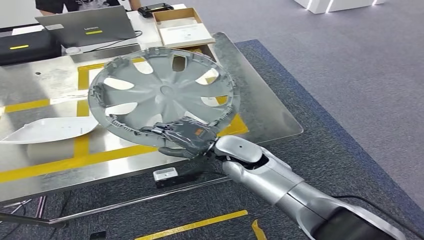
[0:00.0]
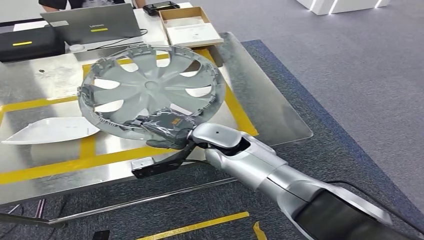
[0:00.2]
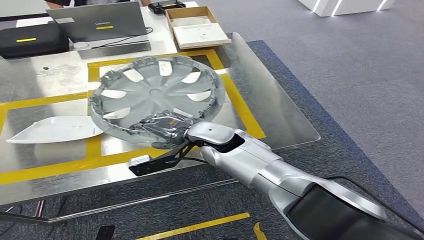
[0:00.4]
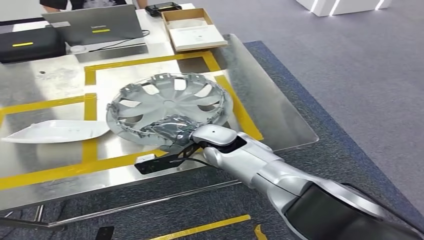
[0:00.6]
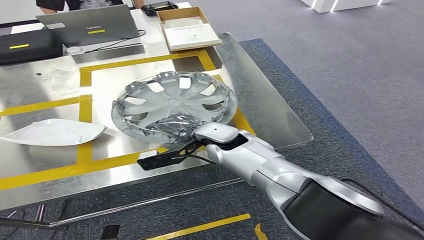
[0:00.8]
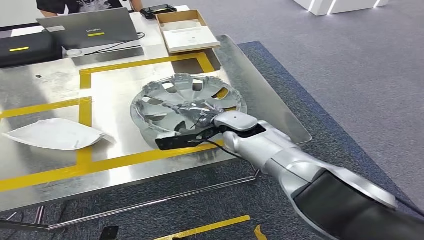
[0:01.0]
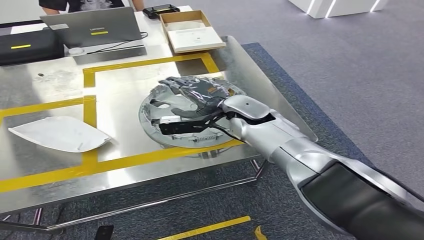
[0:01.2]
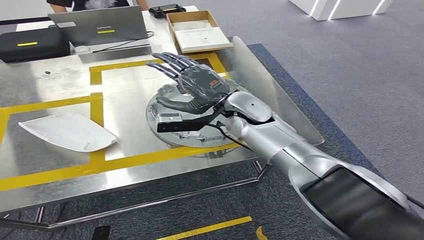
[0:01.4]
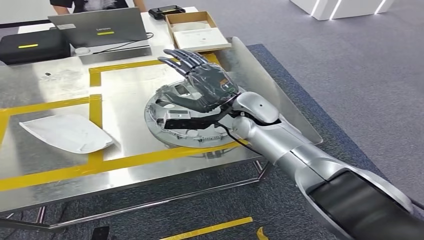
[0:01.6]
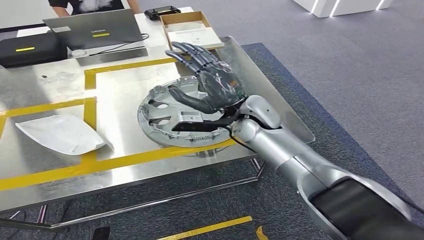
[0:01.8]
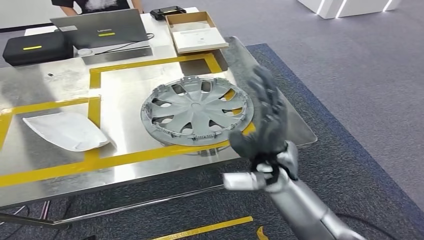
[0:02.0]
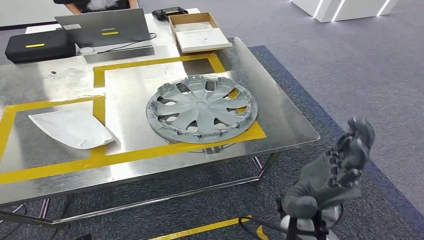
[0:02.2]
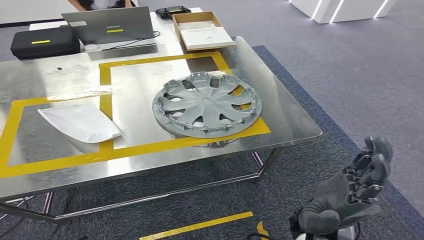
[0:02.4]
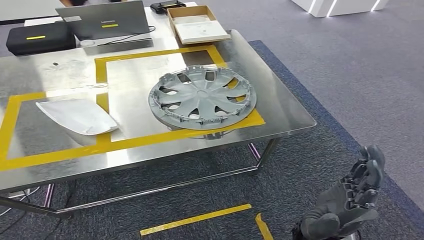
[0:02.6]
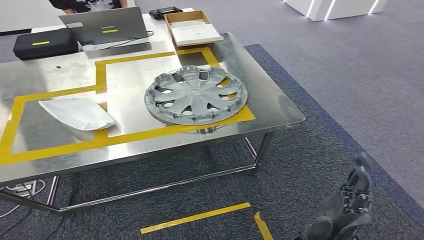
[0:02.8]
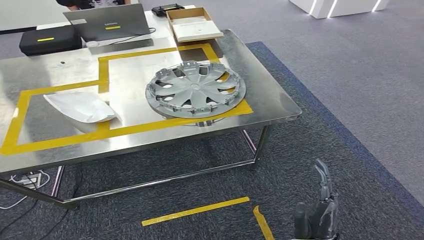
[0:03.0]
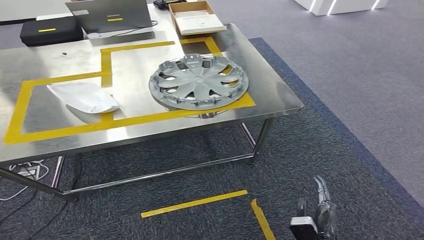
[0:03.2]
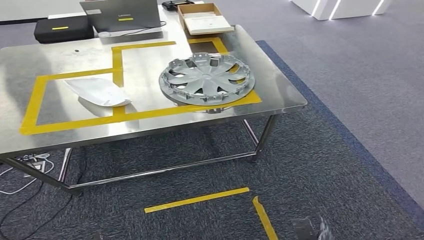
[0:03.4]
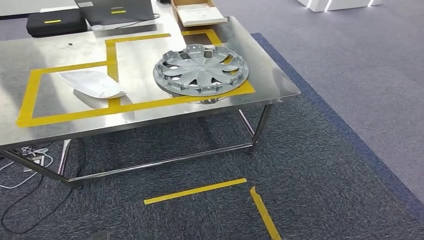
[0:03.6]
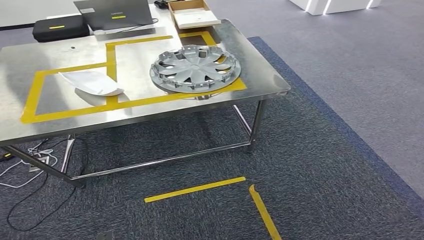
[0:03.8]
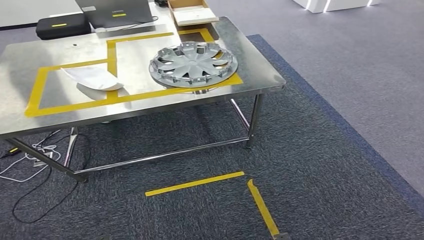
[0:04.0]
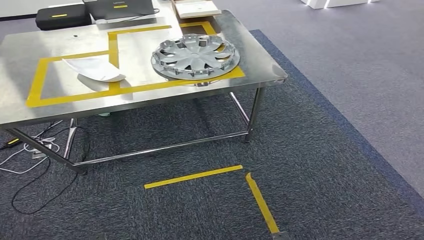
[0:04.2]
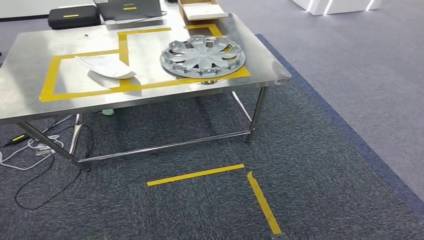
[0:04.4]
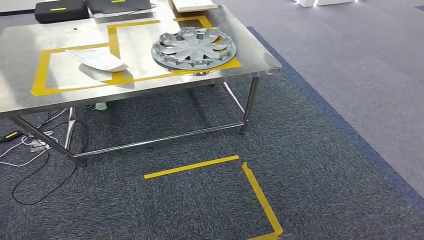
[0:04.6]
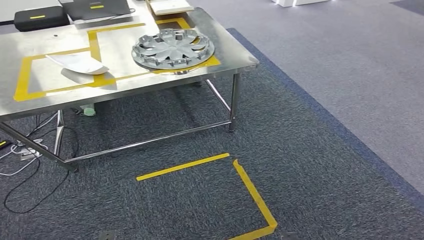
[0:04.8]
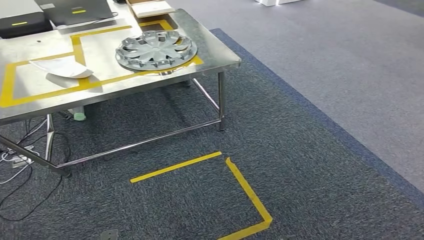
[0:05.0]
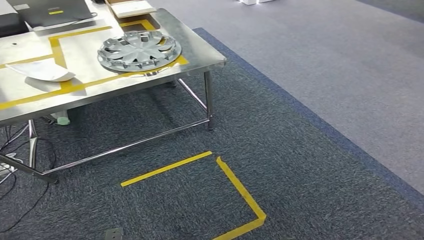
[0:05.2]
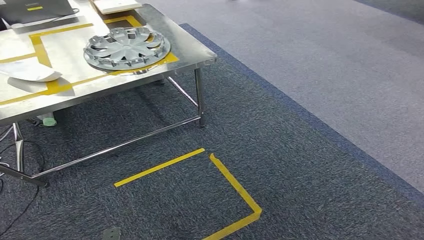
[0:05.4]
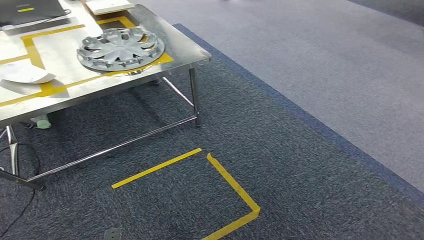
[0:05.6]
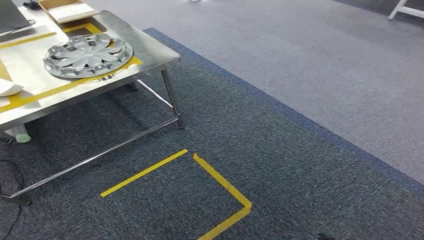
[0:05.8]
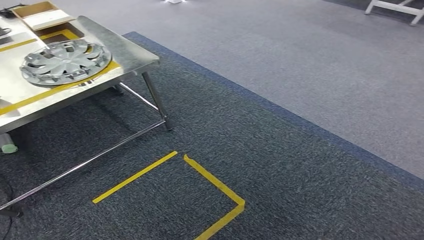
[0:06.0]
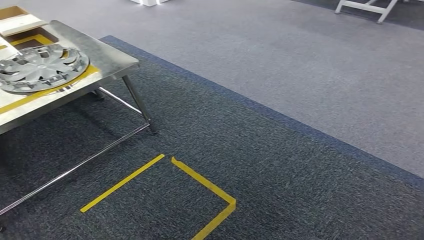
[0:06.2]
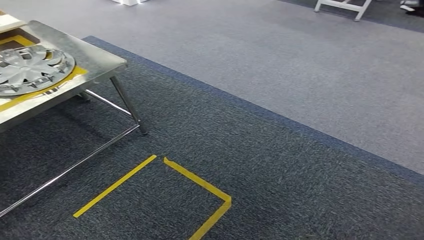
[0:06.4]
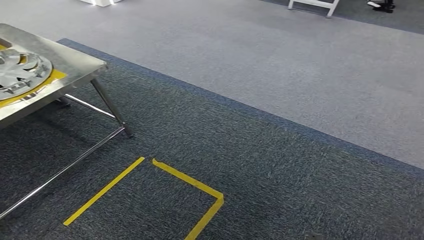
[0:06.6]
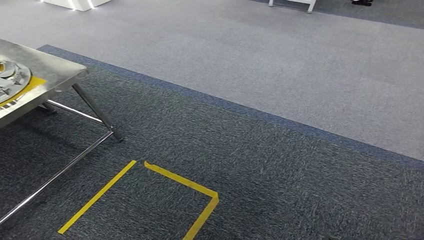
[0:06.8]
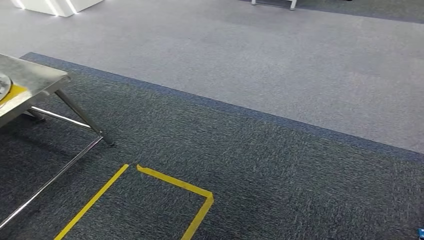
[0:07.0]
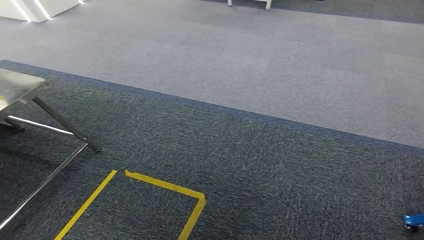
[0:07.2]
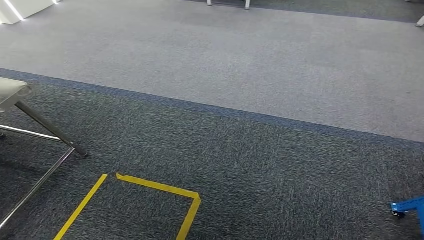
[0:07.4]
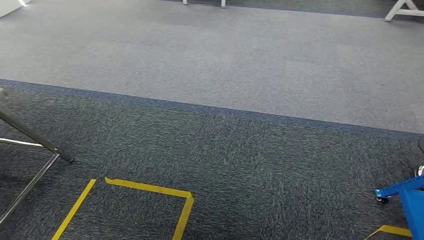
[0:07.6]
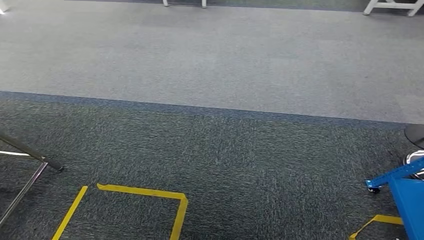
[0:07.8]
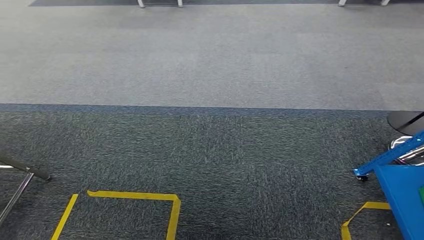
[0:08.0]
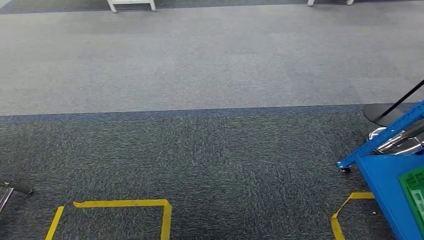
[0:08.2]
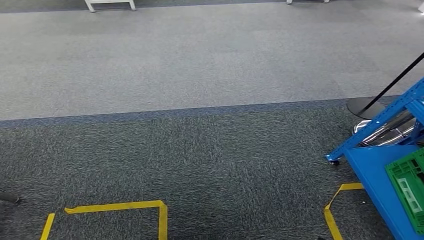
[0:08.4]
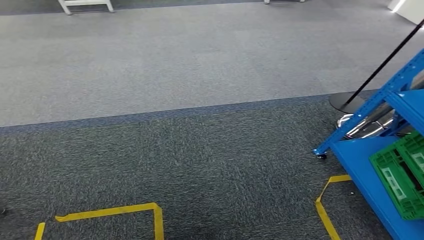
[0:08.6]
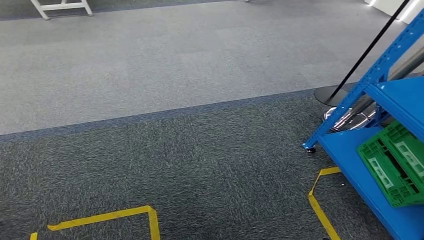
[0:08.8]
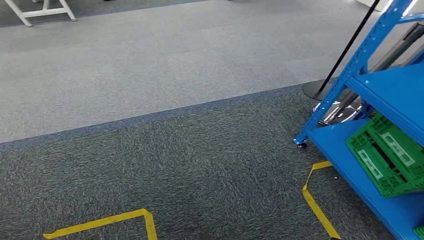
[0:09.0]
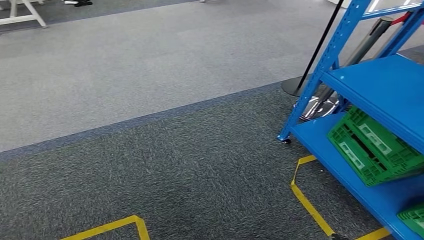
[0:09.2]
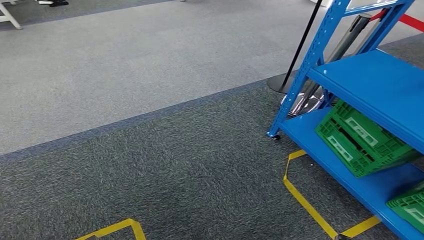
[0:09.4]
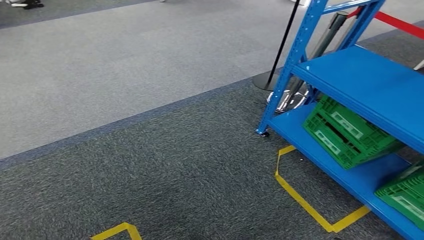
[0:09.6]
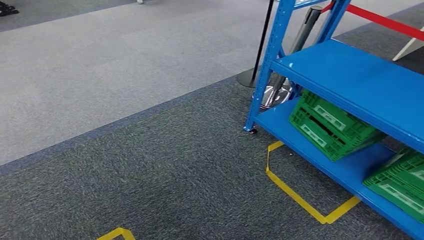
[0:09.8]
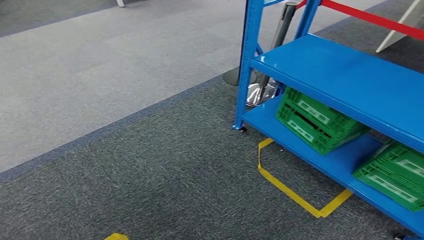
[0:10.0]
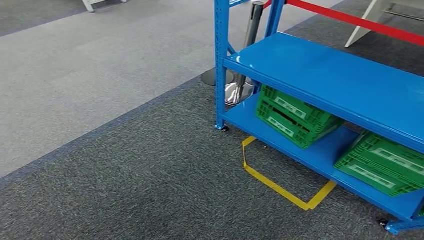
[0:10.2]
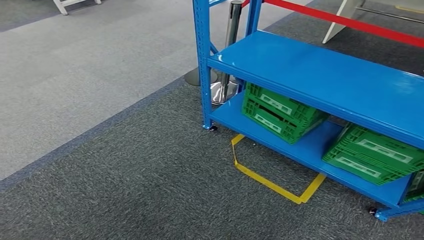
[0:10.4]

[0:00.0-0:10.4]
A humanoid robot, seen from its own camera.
Step, 0:00.0 to 0:02.8: Insert the small component into the corresponding slot on the workbench.

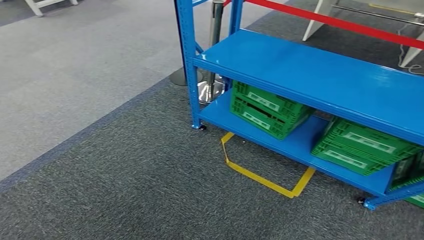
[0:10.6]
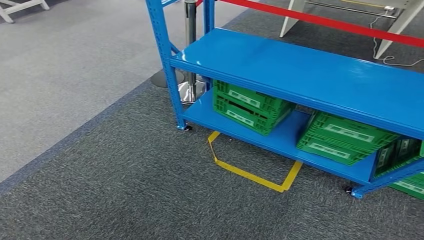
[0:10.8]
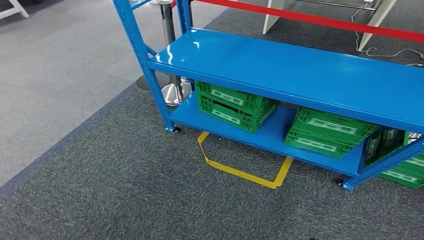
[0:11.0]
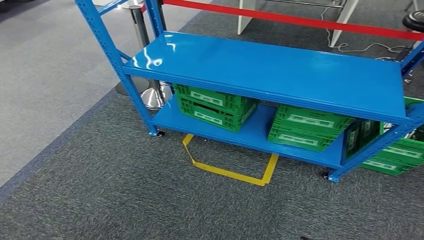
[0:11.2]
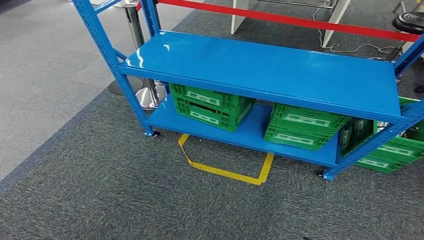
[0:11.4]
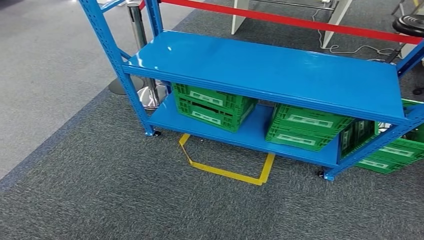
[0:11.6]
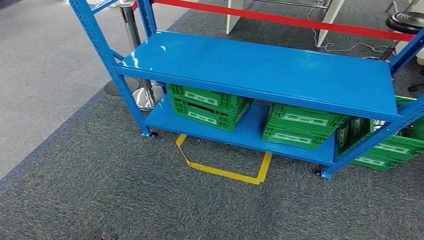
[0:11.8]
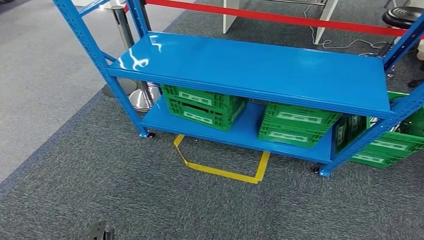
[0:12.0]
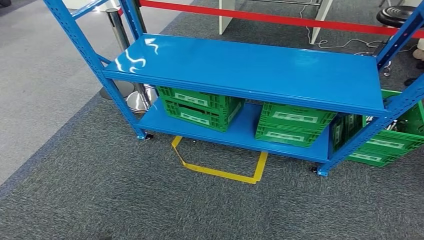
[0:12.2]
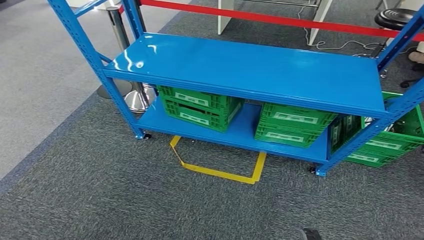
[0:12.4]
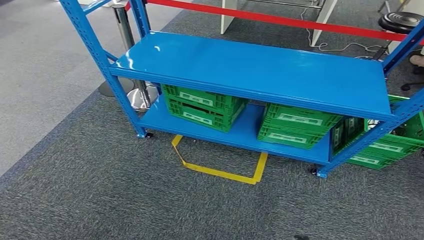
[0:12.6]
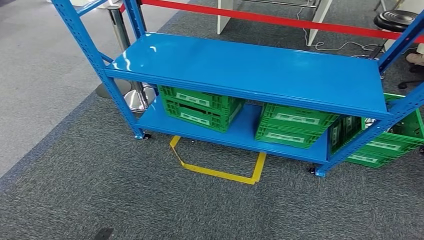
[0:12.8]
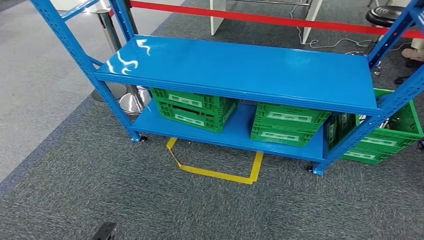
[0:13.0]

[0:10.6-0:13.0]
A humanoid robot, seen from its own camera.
Step, 0:10.6 to 0:13.0: Return to the initial position at the workbench.
